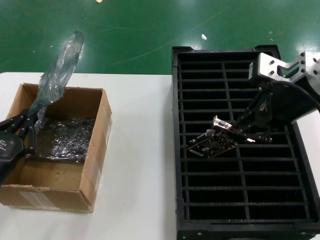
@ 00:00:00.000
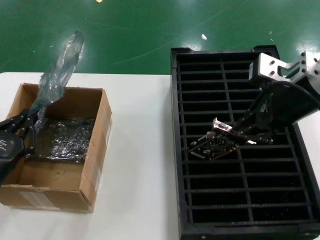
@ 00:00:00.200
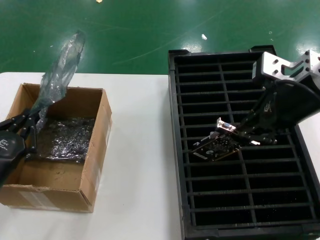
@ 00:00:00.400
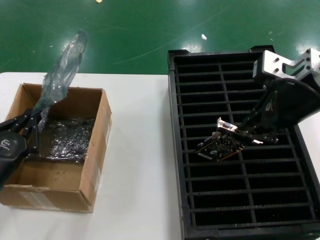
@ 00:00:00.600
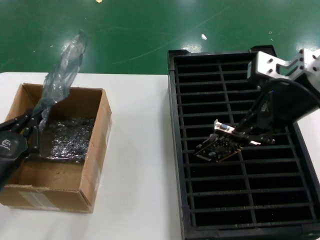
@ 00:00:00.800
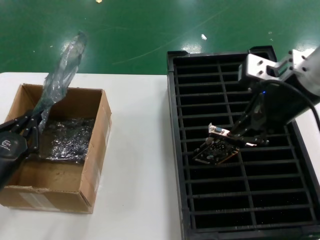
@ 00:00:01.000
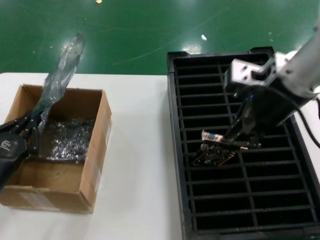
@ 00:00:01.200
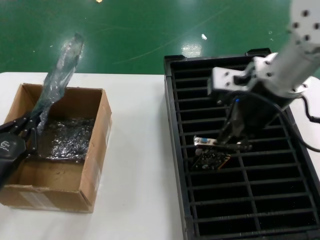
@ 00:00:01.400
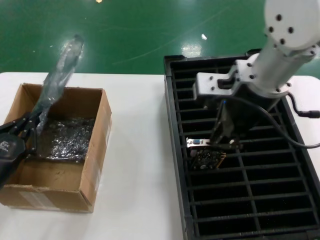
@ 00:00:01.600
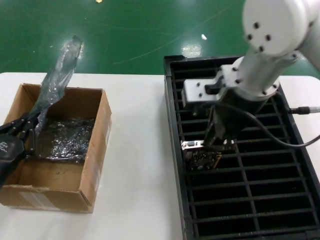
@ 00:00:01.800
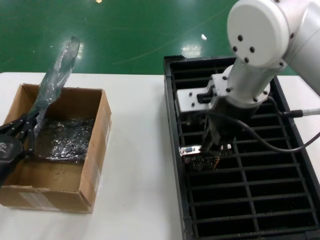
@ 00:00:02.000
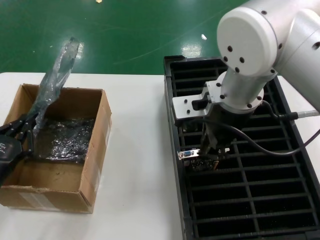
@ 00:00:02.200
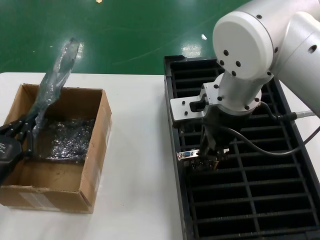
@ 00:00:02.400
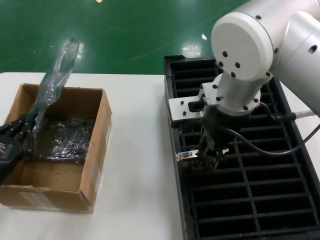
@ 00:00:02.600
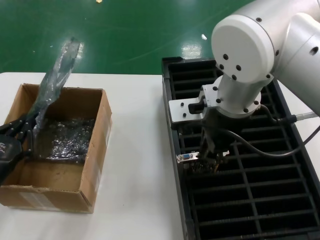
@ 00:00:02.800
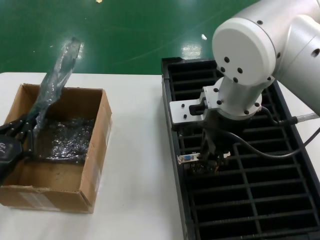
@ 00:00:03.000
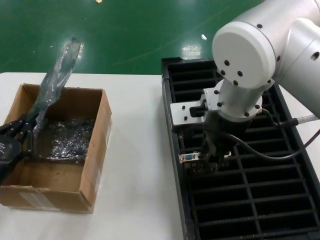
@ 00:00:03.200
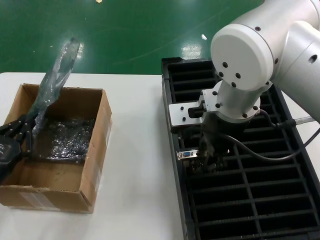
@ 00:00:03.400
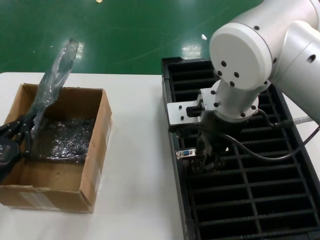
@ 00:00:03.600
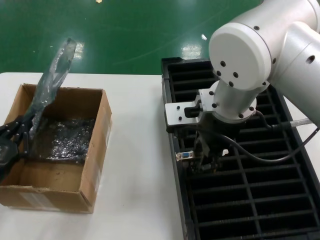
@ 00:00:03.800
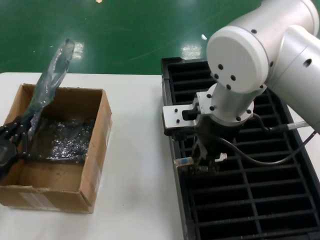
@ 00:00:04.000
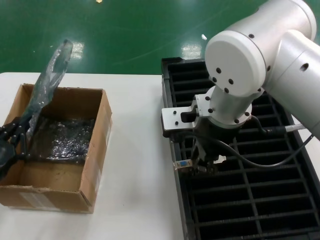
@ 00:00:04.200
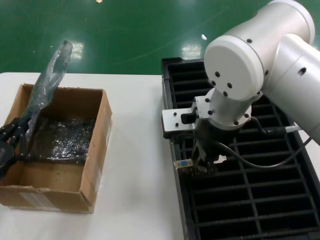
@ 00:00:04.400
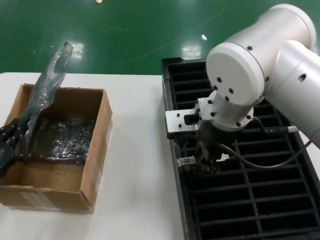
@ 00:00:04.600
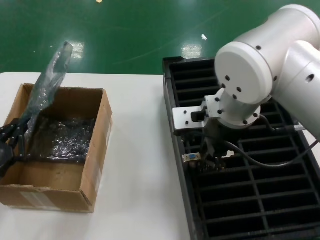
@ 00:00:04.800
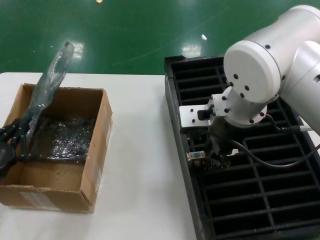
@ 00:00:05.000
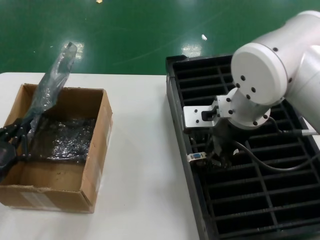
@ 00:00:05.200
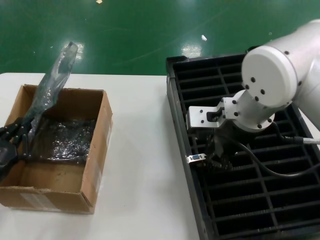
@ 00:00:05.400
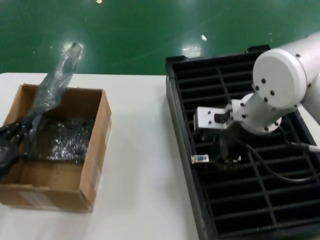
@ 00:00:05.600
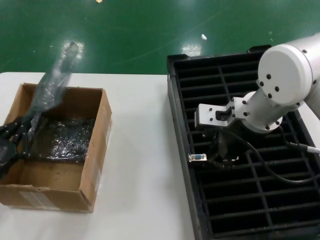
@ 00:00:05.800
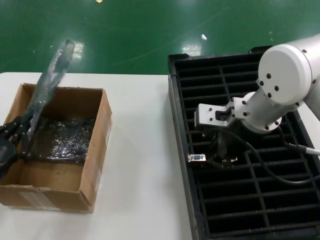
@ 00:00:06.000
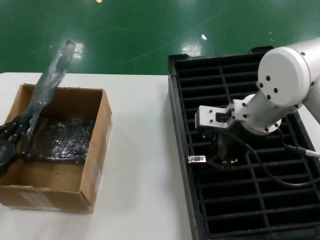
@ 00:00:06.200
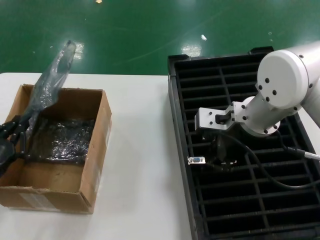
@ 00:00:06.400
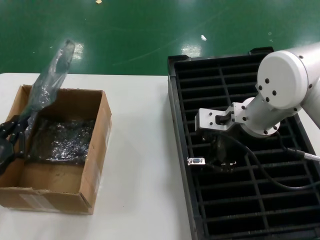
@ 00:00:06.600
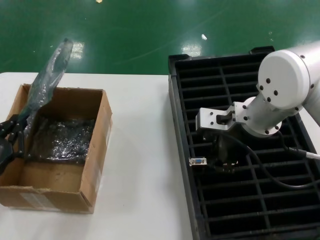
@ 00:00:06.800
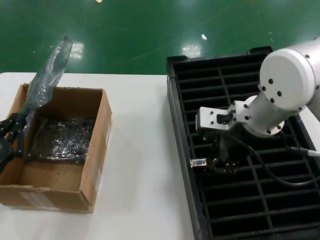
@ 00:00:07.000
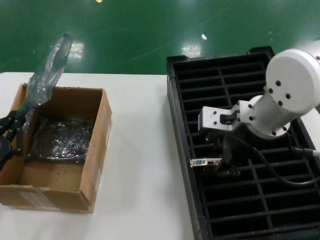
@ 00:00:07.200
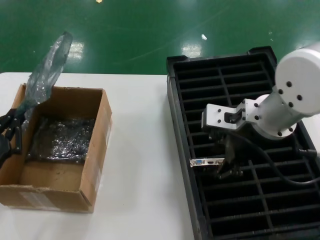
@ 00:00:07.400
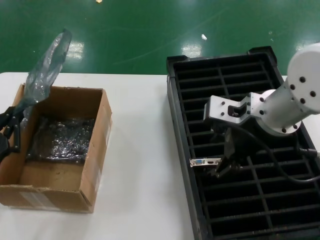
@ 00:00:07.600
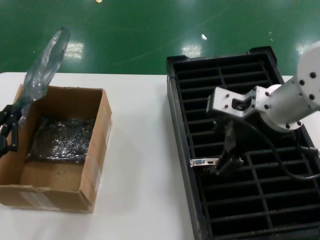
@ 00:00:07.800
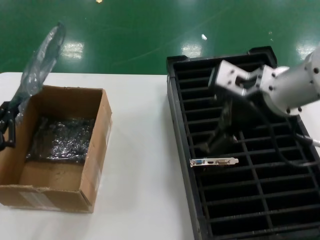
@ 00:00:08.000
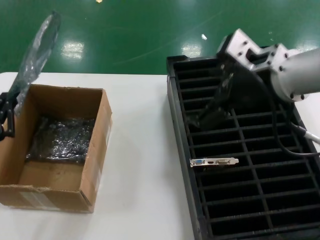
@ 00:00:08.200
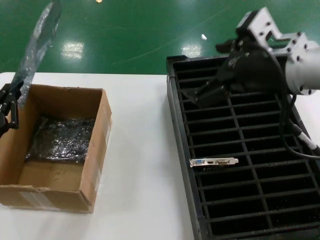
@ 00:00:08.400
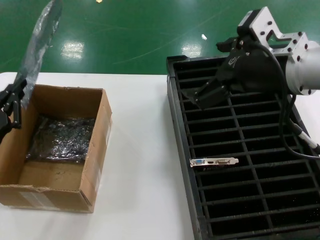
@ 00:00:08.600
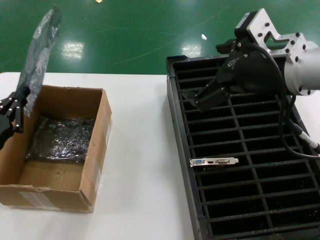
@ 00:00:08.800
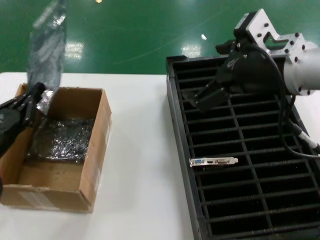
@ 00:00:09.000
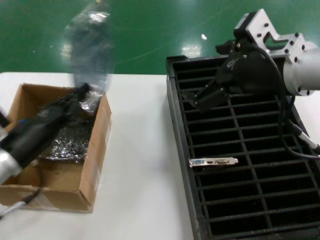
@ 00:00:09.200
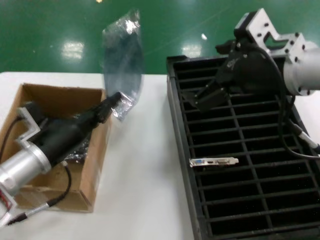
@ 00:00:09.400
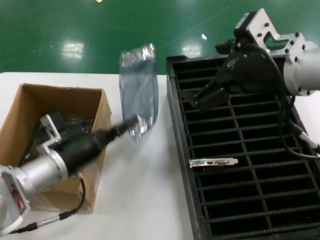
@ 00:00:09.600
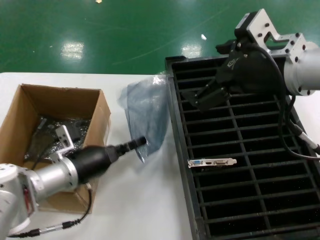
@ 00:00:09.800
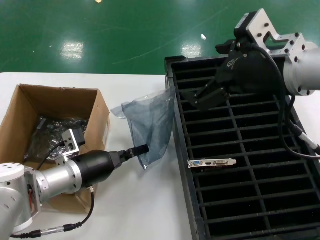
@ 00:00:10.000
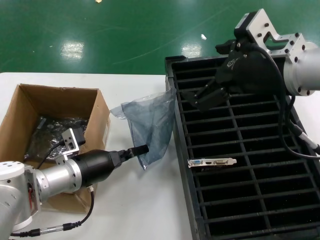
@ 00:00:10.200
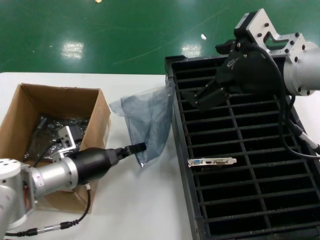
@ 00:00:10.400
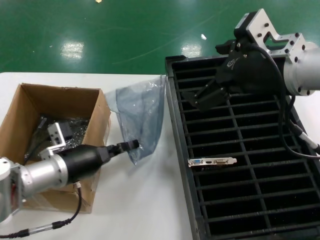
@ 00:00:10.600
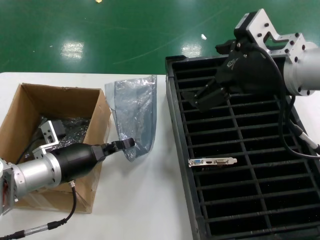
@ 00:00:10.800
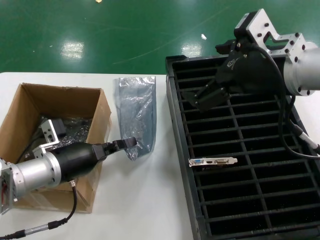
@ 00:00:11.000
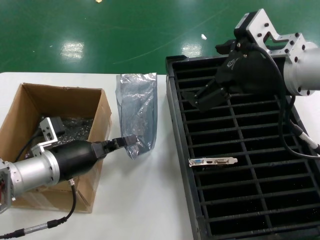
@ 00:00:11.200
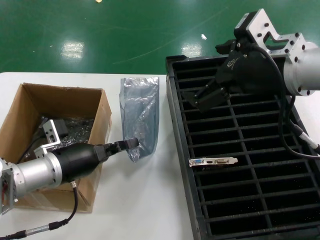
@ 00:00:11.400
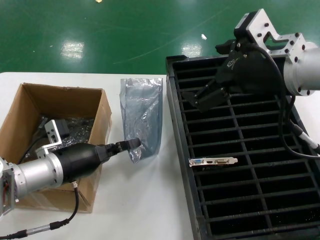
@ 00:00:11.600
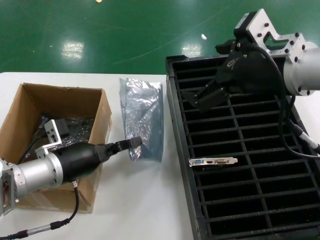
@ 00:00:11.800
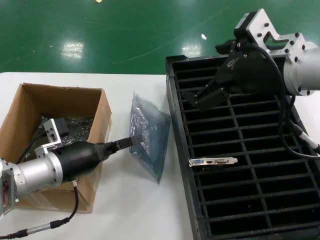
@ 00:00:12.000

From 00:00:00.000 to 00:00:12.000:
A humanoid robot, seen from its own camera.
Task of the whole recording: take out graphics card from box remove packaging put into black container.
Step, from 00:00:00.000 to 00:00:07.600: Place the hard disk in the hard disk enclosure.
From 00:00:00.000 to 00:00:01.600: The right hand goes approximately 10 cm to the left.
From 00:00:01.600 to 00:00:03.000: The right hand moves to the left, roughly 5 cm.
From 00:00:03.000 to 00:00:04.400: There are only small adjustments of the hands.
From 00:00:04.400 to 00:00:06.000: The right hand moves to the right, some 5 cm.
From 00:00:06.000 to 00:00:07.600: The right hand ends up some 5 cm from where it was.
From 00:00:07.600 to 00:00:09.000: The right hand moves roughly 5 cm. The left hand changes place by some 5 cm.
From 00:00:09.000 to 00:00:10.400: The left hand travels to the right and forward by approximately 15 cm.
From 00:00:10.400 to 00:00:12.000: There are only small adjustments of the hands.

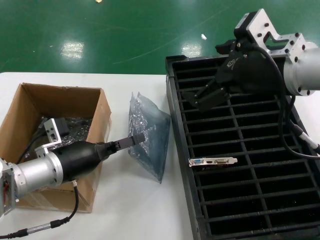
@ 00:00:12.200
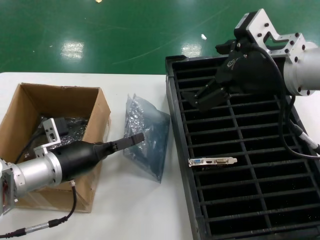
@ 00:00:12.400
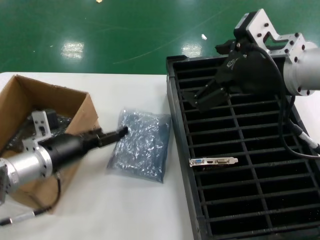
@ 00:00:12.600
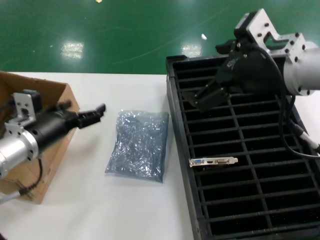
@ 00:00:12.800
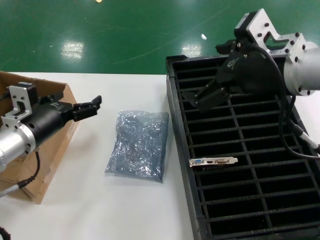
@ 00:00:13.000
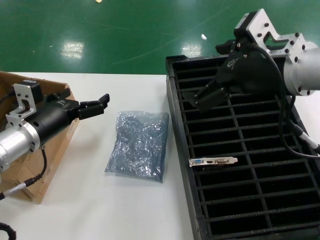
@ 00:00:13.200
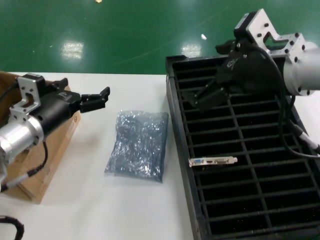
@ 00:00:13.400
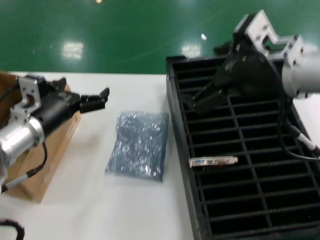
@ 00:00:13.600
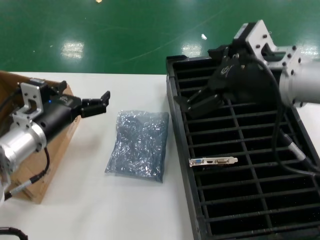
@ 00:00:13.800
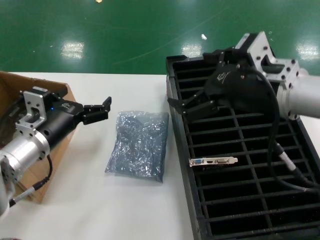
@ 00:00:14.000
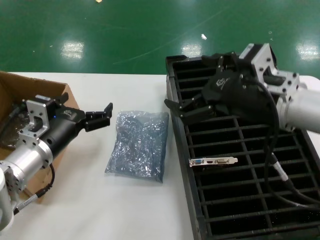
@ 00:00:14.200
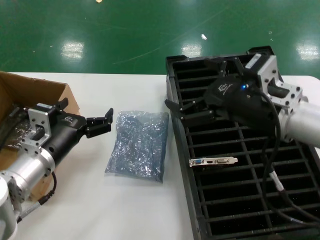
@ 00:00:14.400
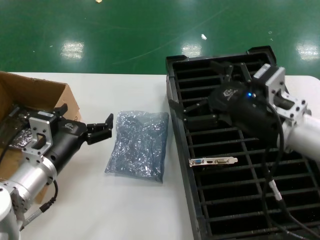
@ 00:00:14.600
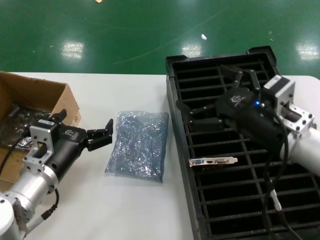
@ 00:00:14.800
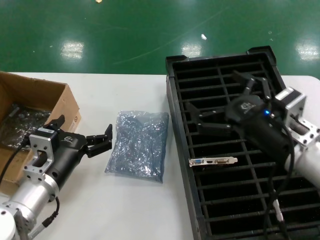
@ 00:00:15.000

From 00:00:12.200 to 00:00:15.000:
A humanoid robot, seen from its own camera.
Task of the whole recording: take out graphics card from box remove packaging put into black container.
From 00:00:12.200 to 00:00:13.600: The left hand travels upward by roughly 5 cm.
From 00:00:13.600 to 00:00:15.000: The left hand moves backward, downward and to the right, roughly 10 cm. The right hand goes some 15 cm downward.
